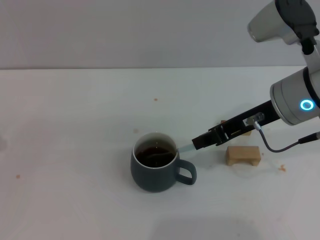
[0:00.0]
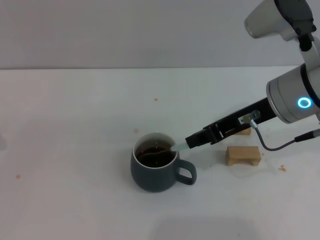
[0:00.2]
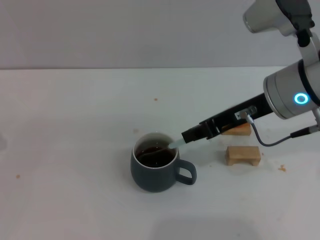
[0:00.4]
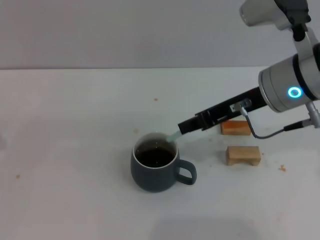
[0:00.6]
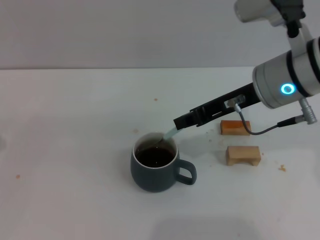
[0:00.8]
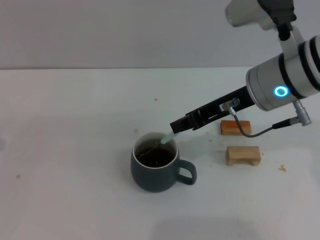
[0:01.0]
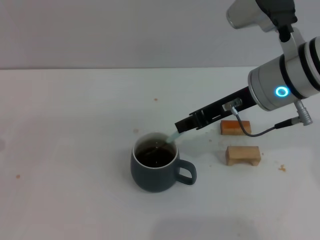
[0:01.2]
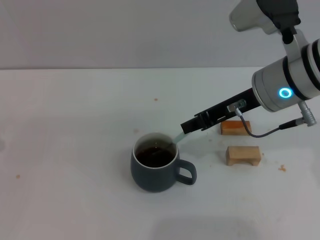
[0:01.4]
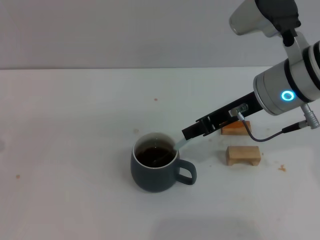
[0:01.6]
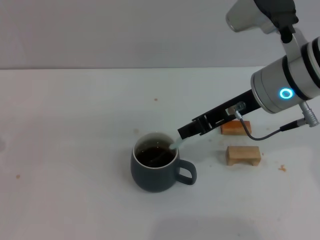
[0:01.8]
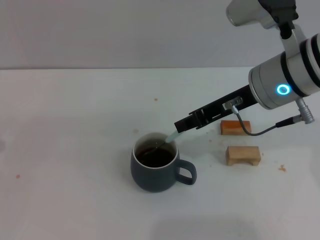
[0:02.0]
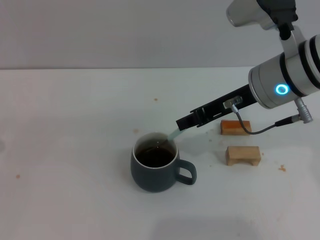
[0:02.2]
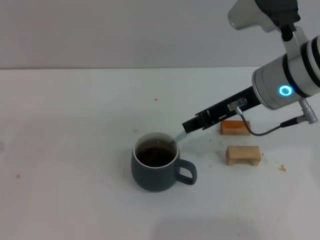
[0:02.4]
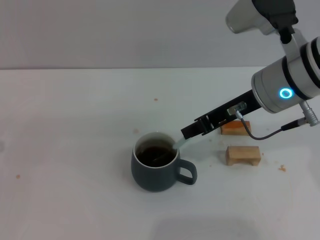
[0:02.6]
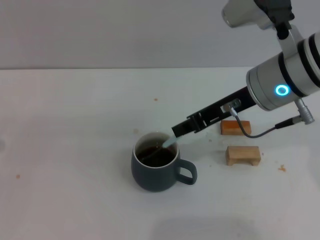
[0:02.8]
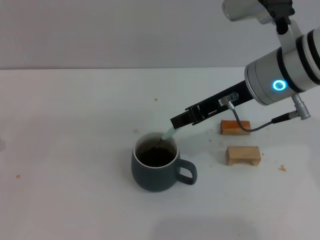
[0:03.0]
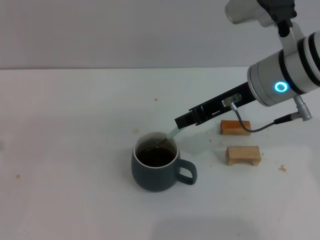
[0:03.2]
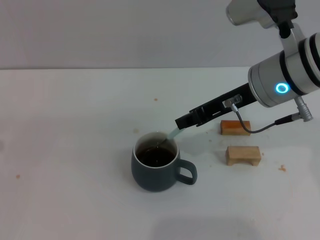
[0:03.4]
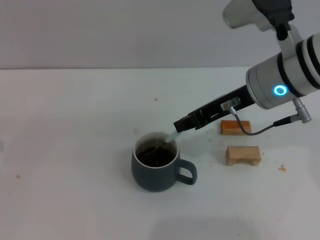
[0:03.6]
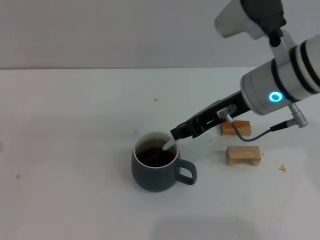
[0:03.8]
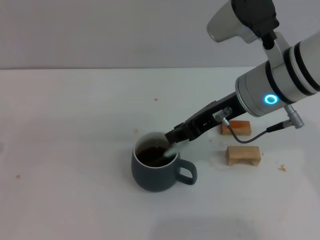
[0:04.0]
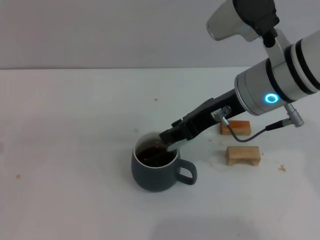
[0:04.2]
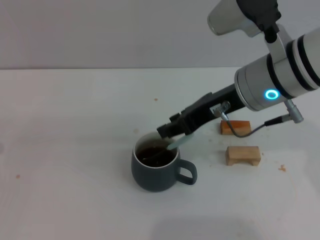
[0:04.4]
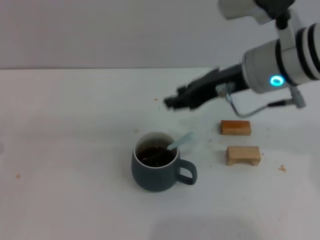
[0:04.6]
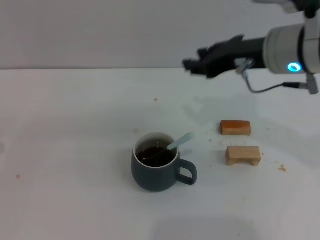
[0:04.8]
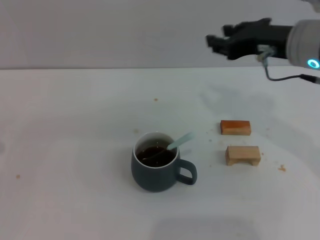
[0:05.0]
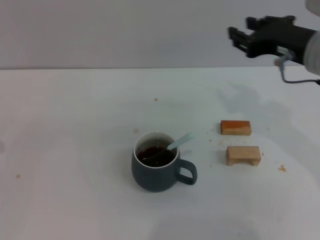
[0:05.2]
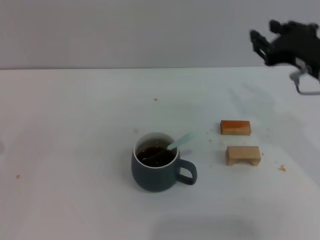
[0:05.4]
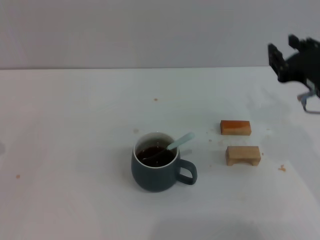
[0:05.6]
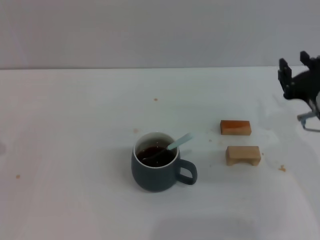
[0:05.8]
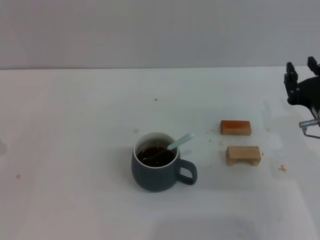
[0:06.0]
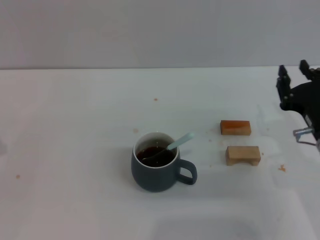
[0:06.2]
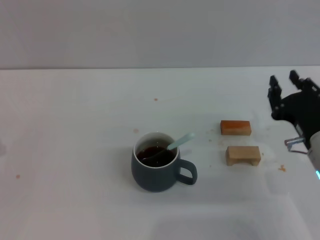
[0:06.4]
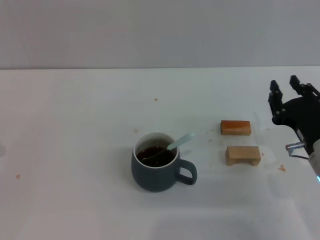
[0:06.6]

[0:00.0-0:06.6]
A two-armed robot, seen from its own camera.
Task of the whole recording: Move the grey cup to the center, lift the blue spoon, stir it three times in the cup, and put the spoon into the cup.
Step, 0:00.0 to 0:04.4: Stir the coffee in the cup with the right gripper.
0:00.0 to 0:03.2: The grippers move only a little.
0:03.2 to 0:05.0: The right gripper opens.
0:05.0 to 0:06.6: The right gripper goes some 20 cm downward and backward.
